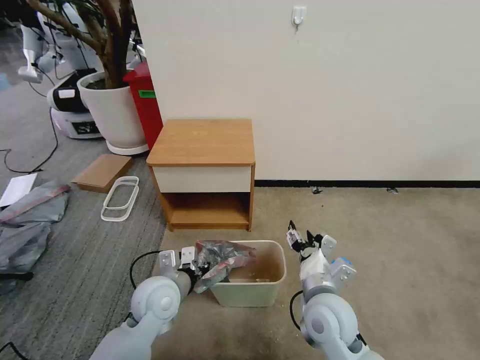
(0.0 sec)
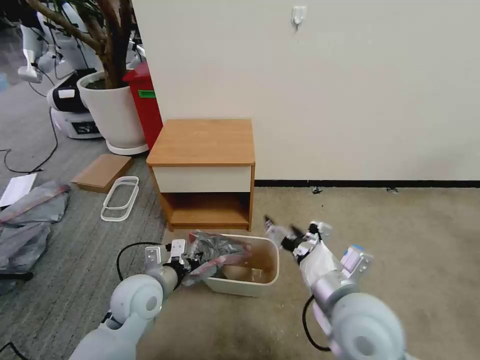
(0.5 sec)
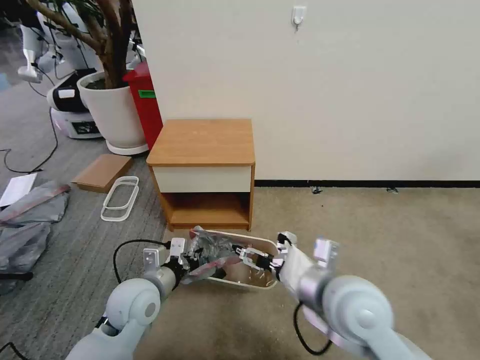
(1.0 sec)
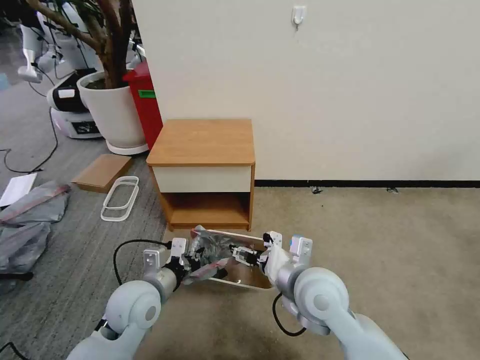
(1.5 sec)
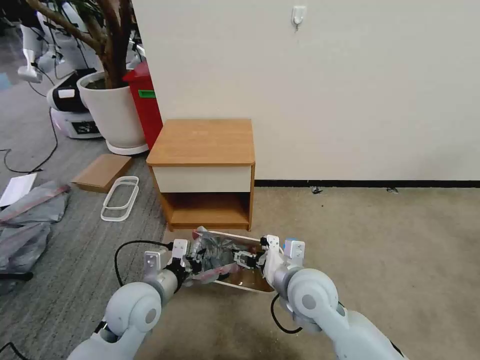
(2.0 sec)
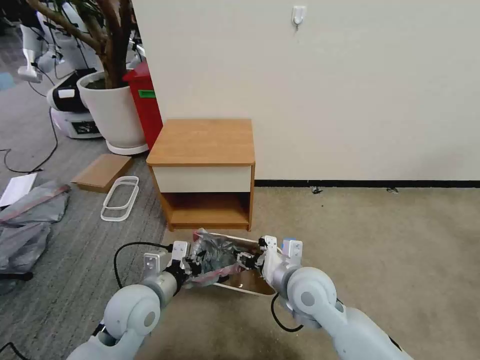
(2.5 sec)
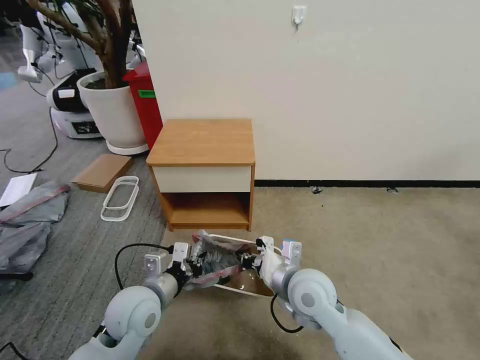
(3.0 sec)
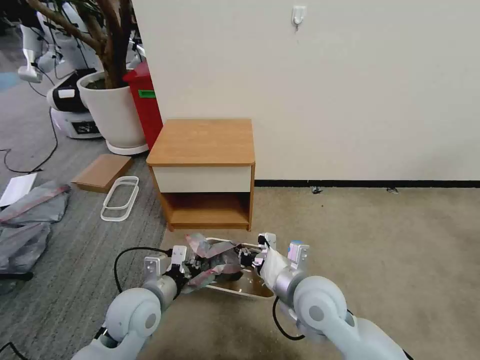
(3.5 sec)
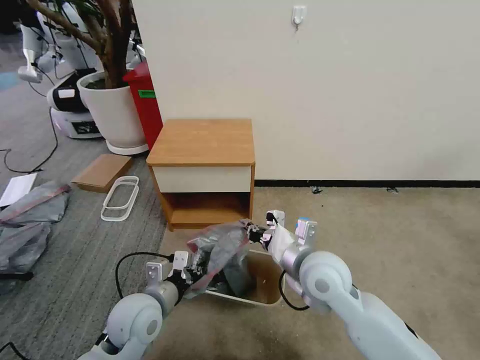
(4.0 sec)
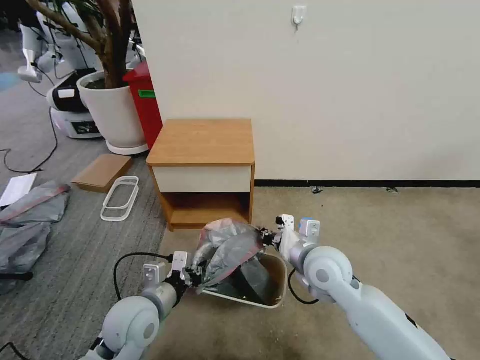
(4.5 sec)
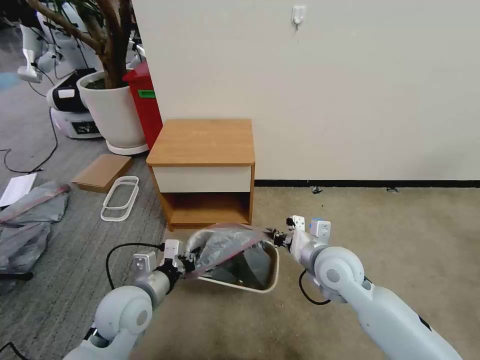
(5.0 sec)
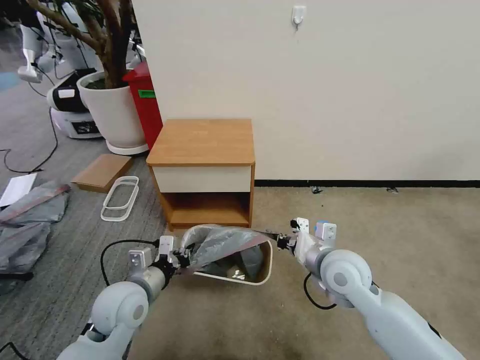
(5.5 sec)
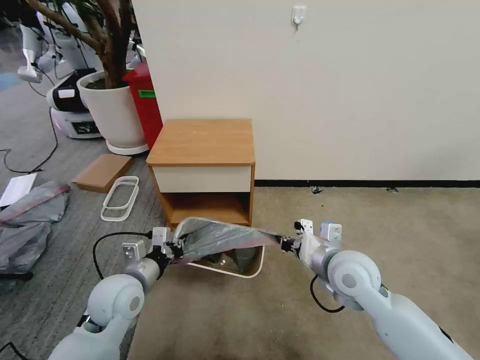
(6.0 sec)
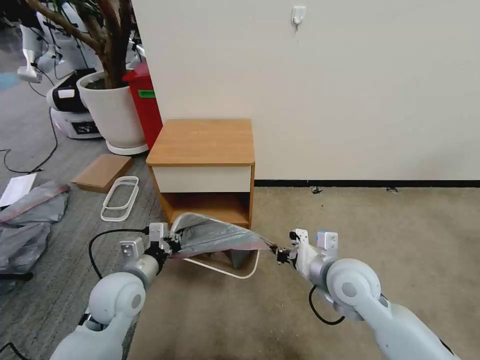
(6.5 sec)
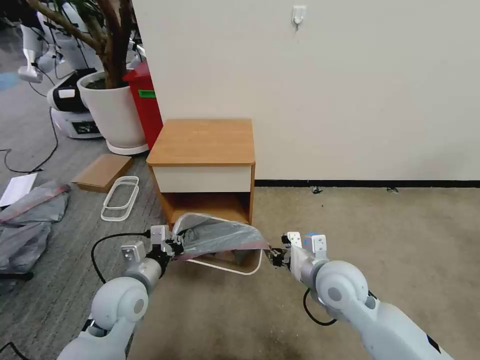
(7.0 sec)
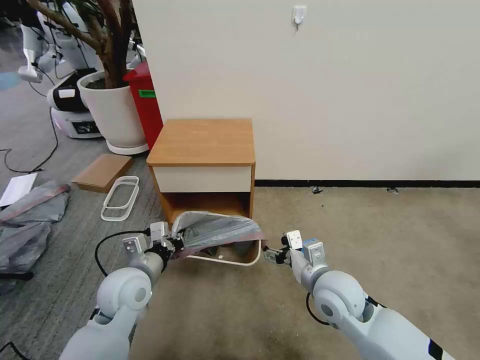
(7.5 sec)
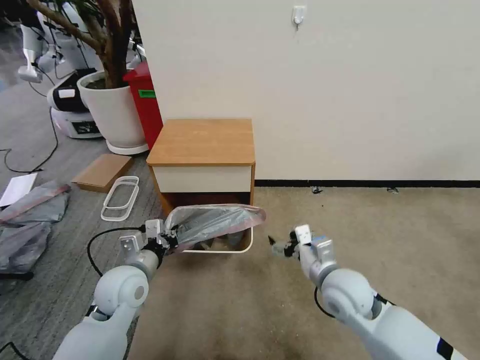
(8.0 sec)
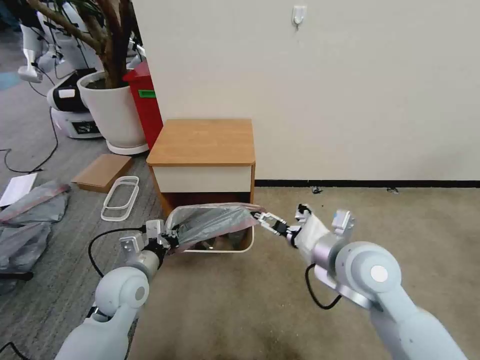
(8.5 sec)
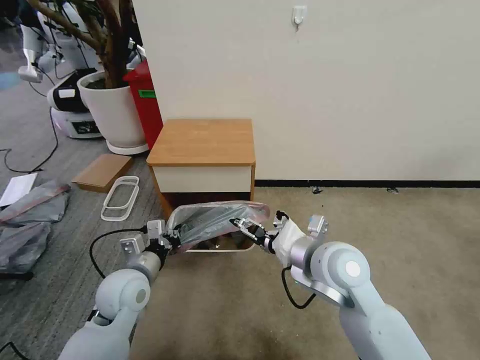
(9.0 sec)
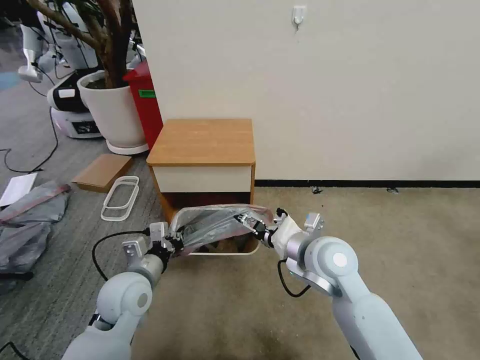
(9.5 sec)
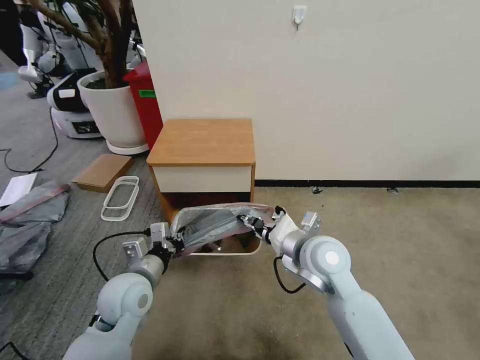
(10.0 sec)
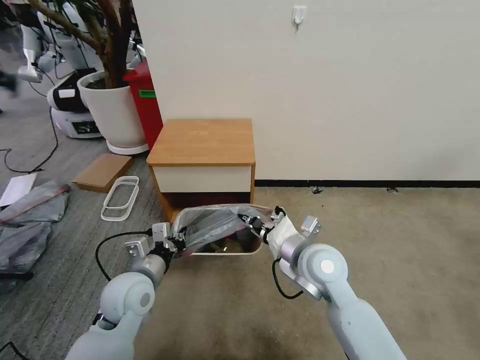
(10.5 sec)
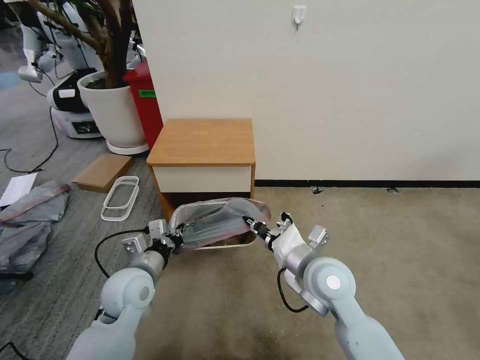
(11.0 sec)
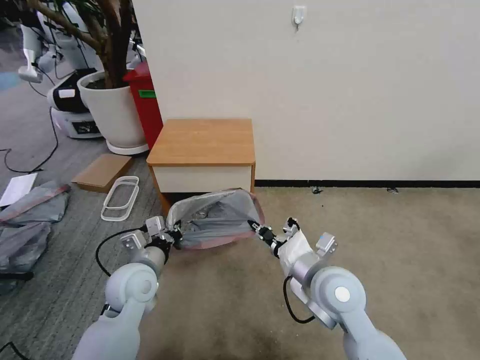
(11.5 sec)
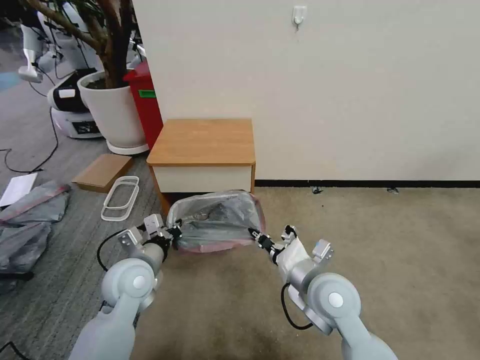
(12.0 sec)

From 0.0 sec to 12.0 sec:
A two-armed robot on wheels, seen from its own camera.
Task of the whole recording: Pick up the garbage bag from the table and place it over the trash can.
From 0.0 sec to 2.0 sec: The right gripper goes upward and returns, roughly 10 cm each way.
From 2.0 sec to 4.0 sec: The right gripper closes its fingers.
From 4.0 sec to 6.0 sec: The right gripper goes some 5 cm to the right; the left gripper ends up roughly 5 cm from where it was.
From 6.0 sec to 8.0 sec: The right gripper opens its fingers.
From 8.0 sec to 10.0 sec: The right gripper shifts about 10 cm upward and to the left, and closes.
From 10.0 sec to 12.0 sec: The right gripper goes some 5 cm backward, and closes.

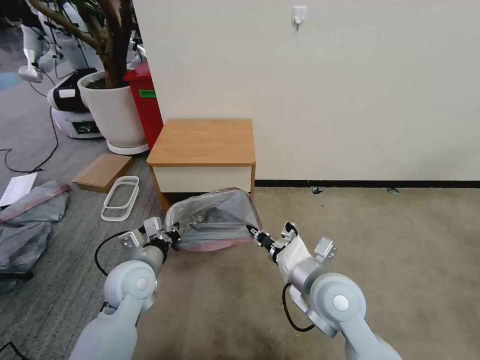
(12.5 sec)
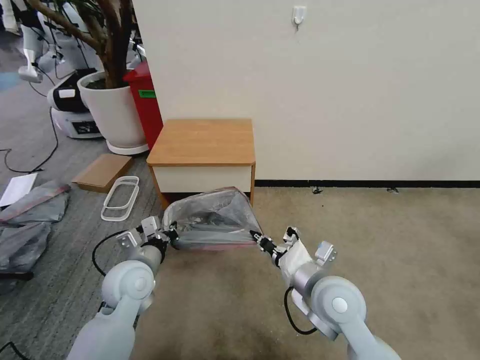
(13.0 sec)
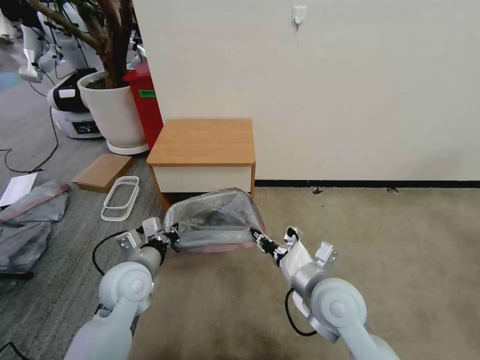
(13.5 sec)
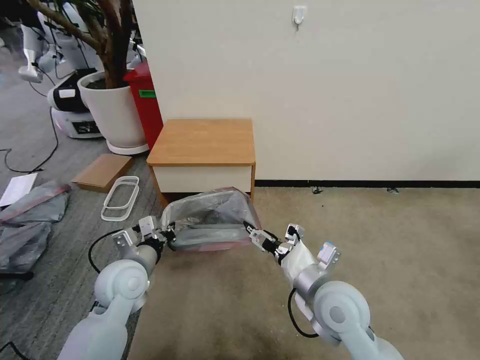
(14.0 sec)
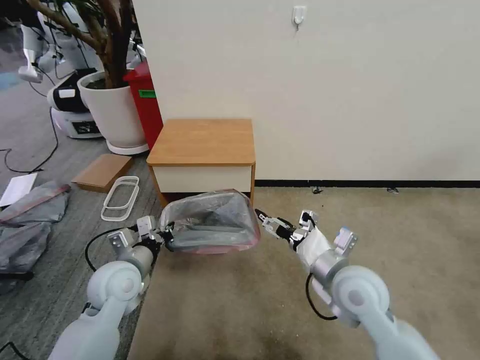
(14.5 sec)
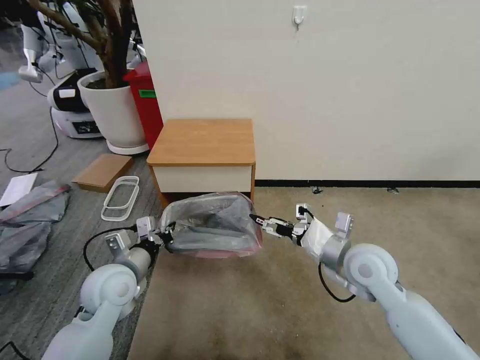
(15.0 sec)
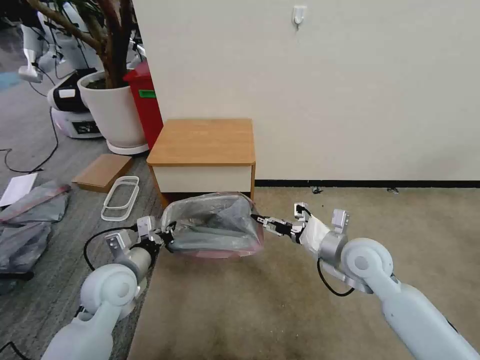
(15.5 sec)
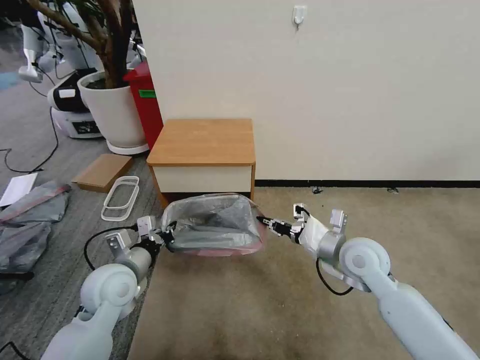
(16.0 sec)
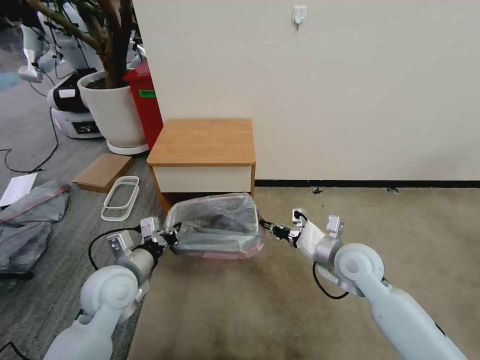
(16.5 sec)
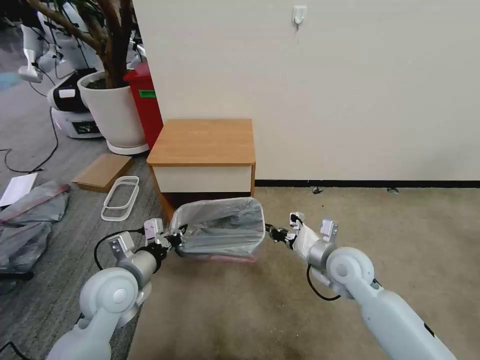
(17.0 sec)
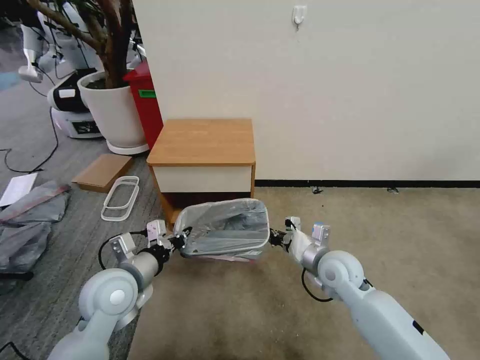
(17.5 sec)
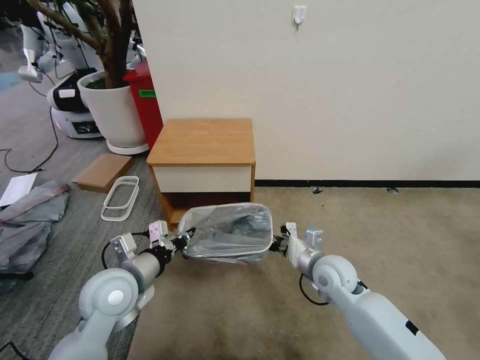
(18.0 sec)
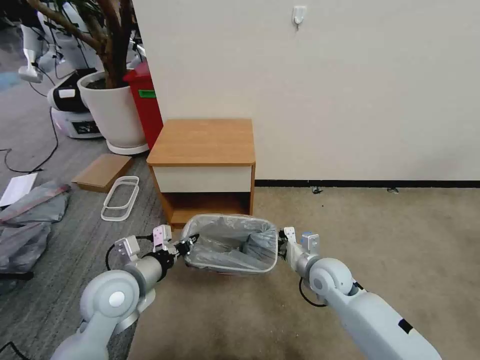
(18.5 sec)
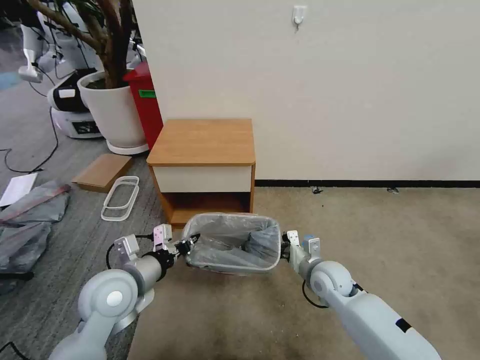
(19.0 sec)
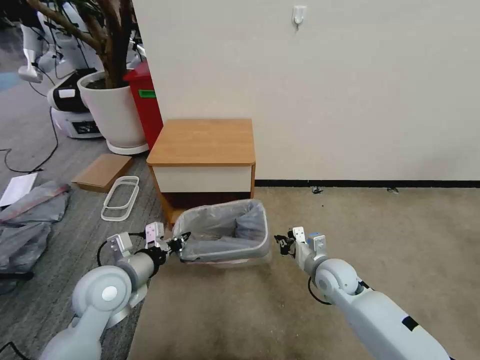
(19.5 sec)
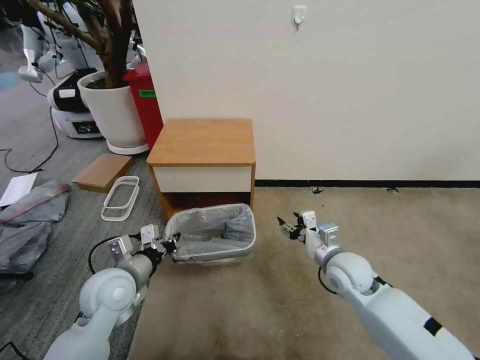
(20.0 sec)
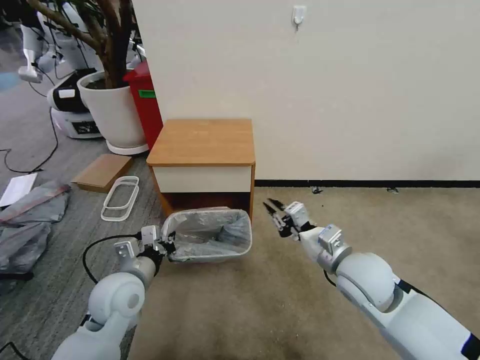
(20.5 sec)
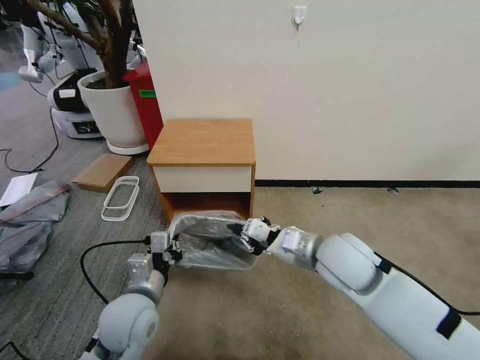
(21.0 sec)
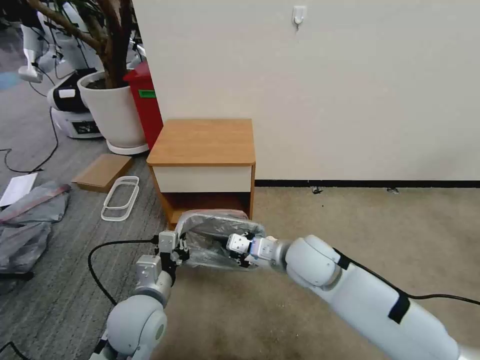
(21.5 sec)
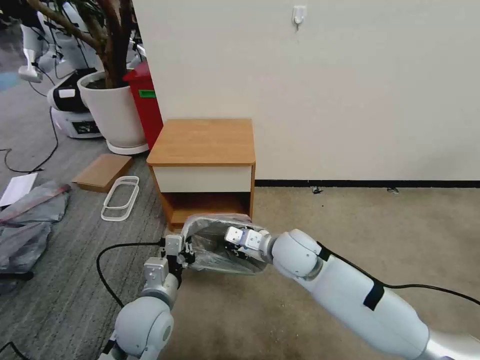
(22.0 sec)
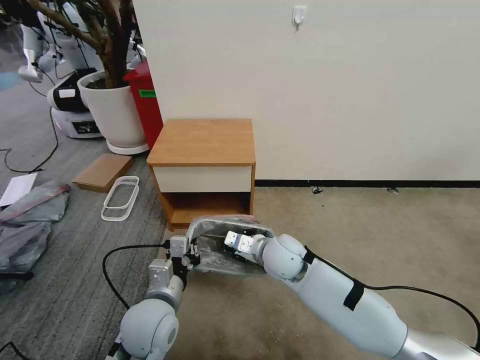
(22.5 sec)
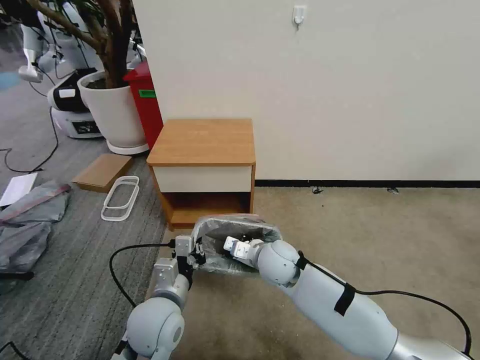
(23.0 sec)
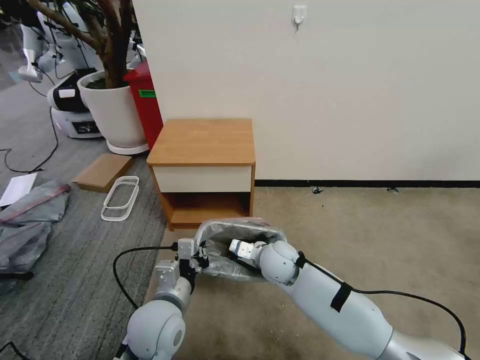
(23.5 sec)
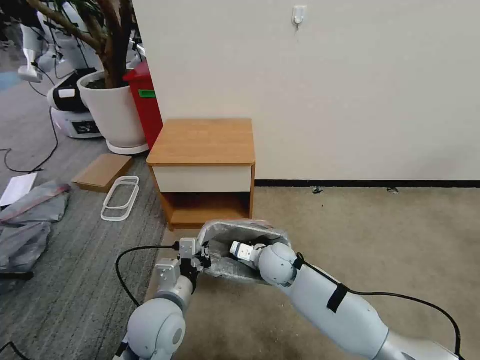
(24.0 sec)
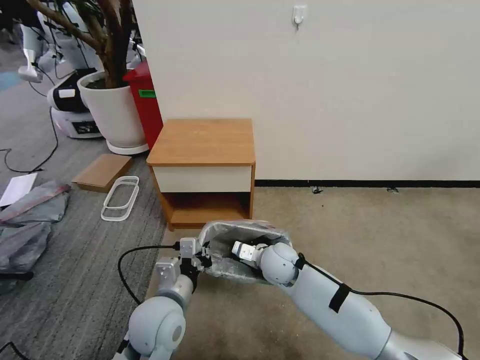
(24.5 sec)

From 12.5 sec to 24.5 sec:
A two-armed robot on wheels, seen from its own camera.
Task of the whole recording: Pick up the garbage bag from the table and place it over the trash can.
From 12.5 sec to 14.5 sec: The right gripper ends up some 5 cm from where it was, and opens its fingers.
From 14.5 sec to 16.5 sec: The right gripper is displaced forward by approximately 5 cm, and closes.
From 16.5 sec to 18.5 sec: The right gripper shifts about 10 cm downward.
From 18.5 sec to 20.5 sec: The right gripper shifts about 10 cm upward, and opens, then closes again.
From 20.5 sec to 22.5 sec: The right gripper is displaced to the left and forward by approximately 15 cm. The left gripper travels to the right by approximately 5 cm.
From 22.5 sec to 24.5 sec: The right gripper heads downward, covering some 5 cm.

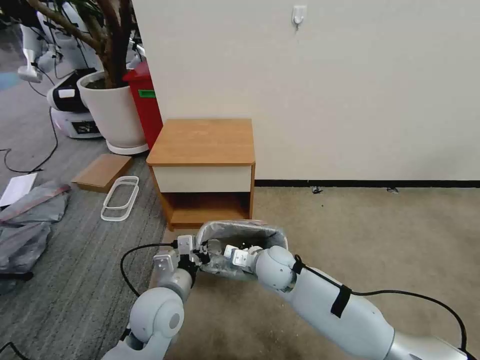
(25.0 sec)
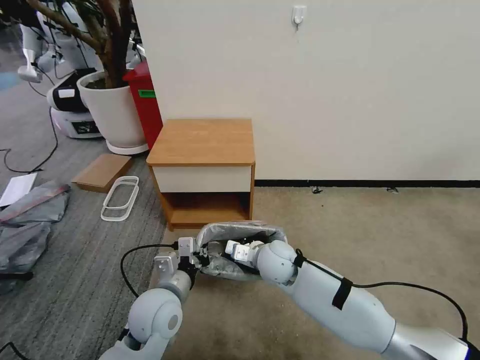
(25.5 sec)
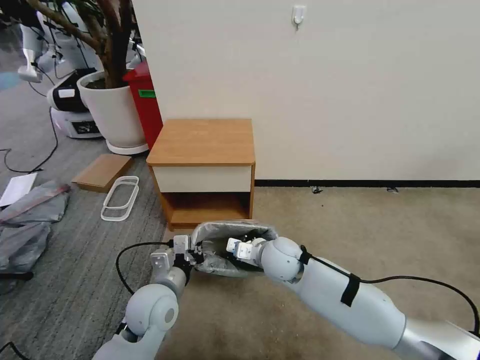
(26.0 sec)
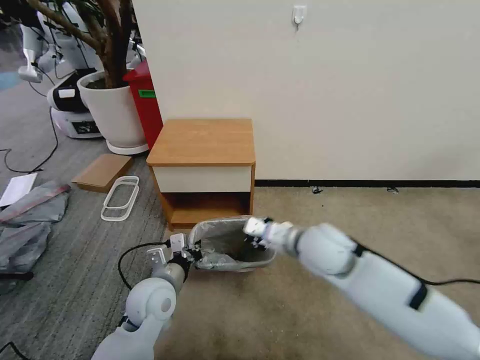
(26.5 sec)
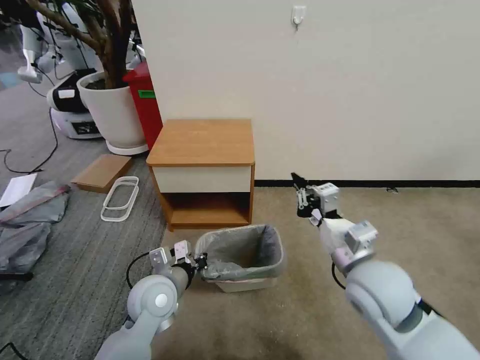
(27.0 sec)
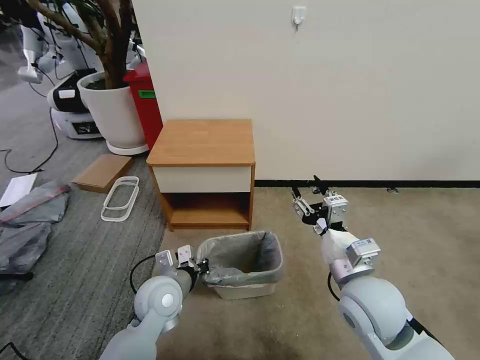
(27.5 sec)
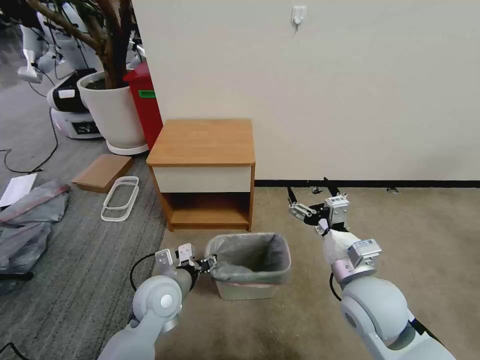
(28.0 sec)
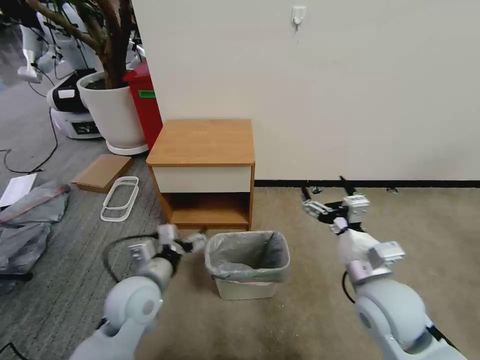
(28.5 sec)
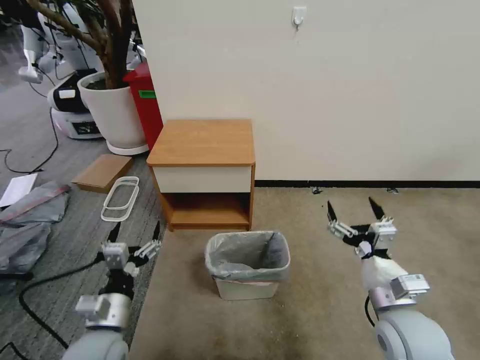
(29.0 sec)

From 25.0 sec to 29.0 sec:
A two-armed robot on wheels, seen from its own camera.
Task of the whole recording: Pick up the garbage bag from the table and place it over the trash can.
From 25.0 sec to 27.0 sec: The right gripper goes some 20 cm to the right, upward and backward.
From 27.0 sec to 29.0 sec: The right gripper shifts some 10 cm downward, to the right and backward, and opens, while the left gripper heads backward and to the left, covering approximately 15 cm, and opens its fingers.
